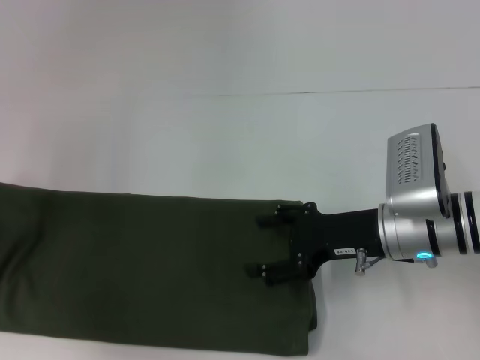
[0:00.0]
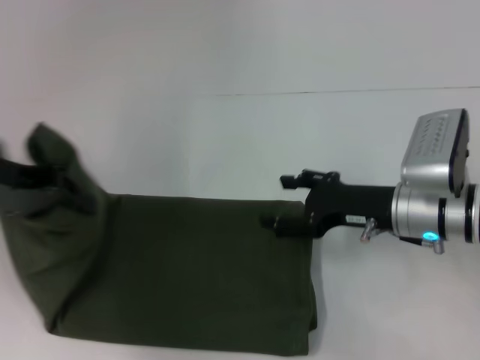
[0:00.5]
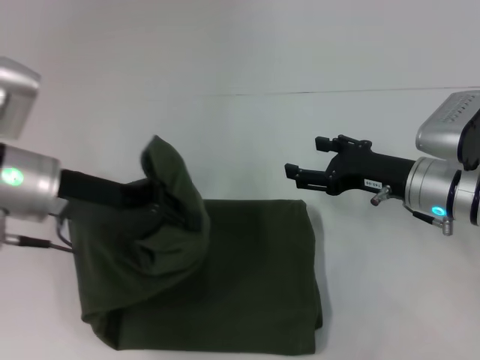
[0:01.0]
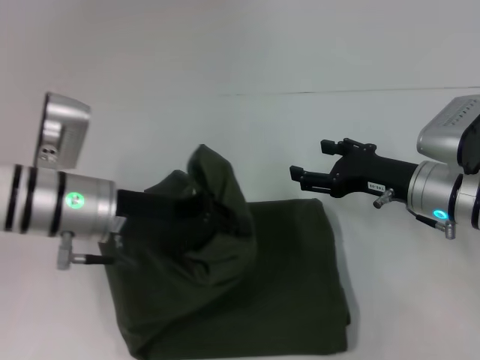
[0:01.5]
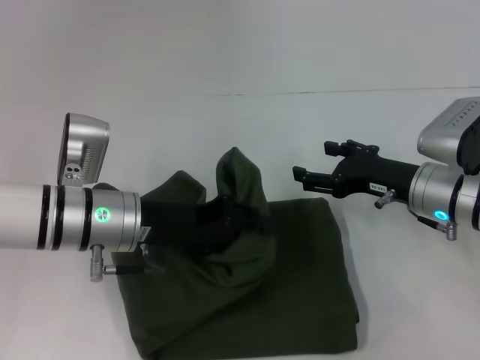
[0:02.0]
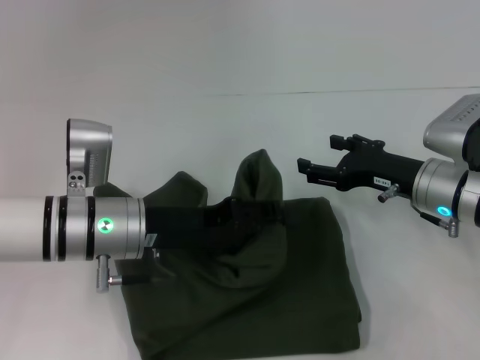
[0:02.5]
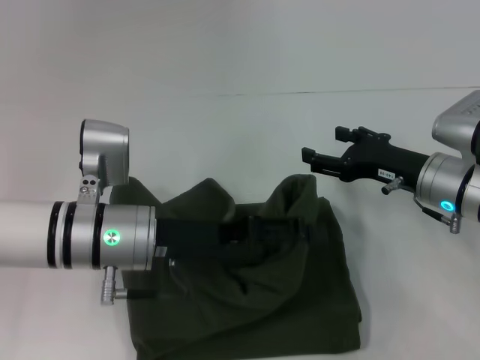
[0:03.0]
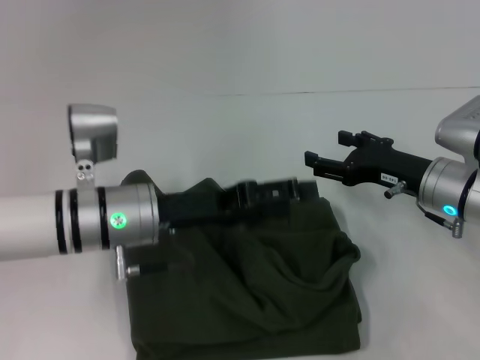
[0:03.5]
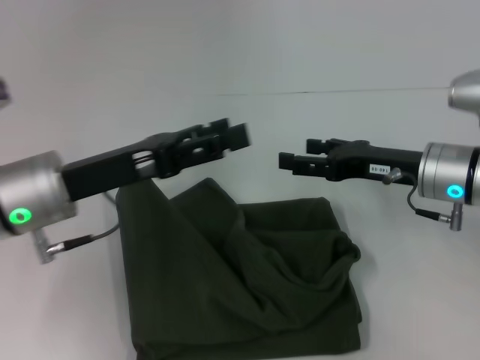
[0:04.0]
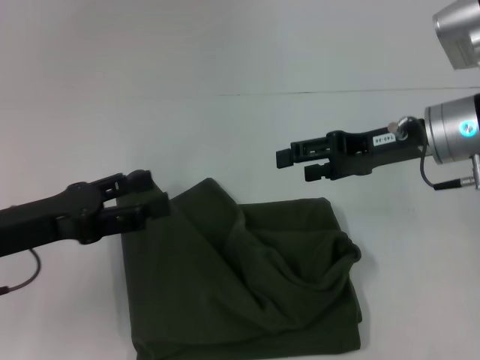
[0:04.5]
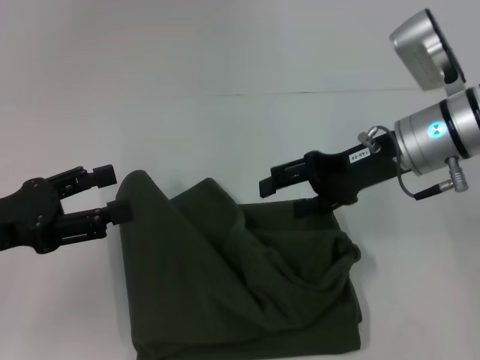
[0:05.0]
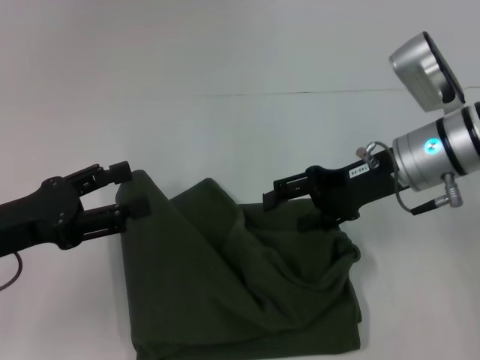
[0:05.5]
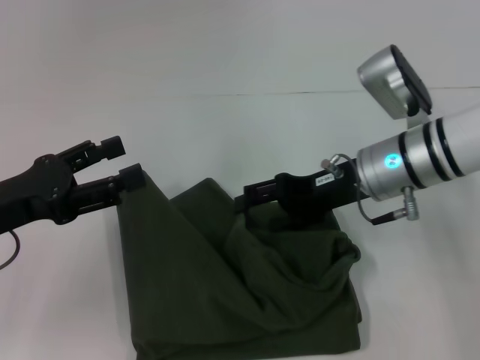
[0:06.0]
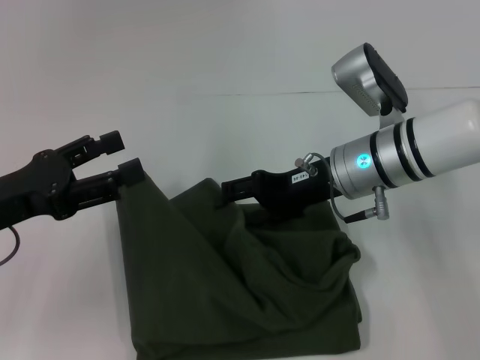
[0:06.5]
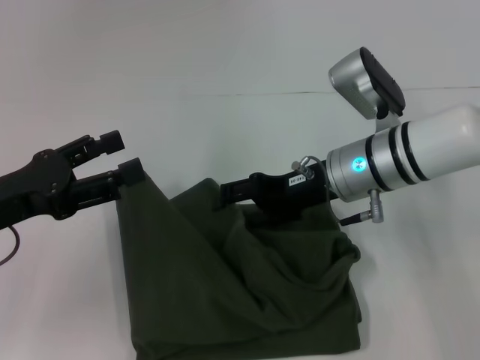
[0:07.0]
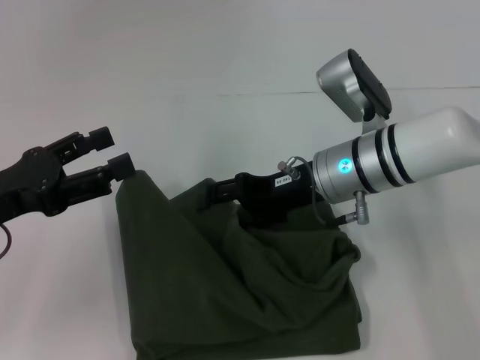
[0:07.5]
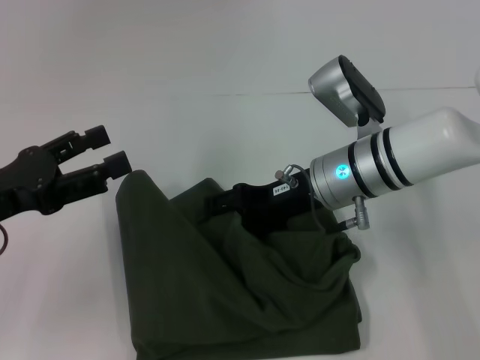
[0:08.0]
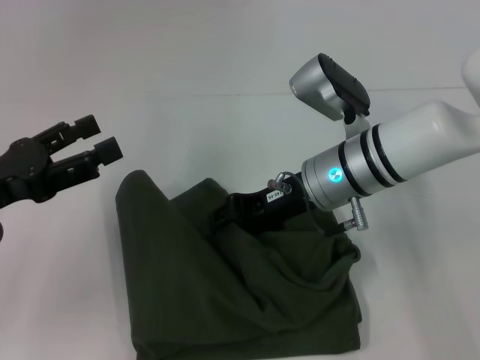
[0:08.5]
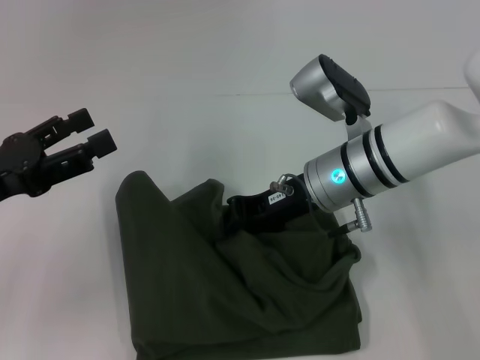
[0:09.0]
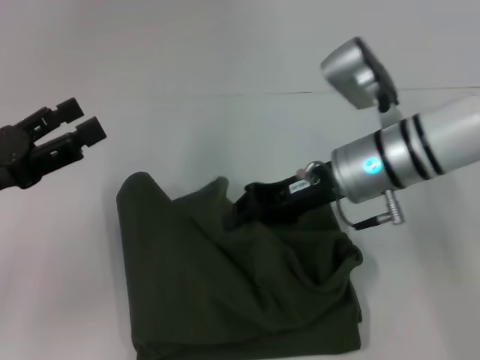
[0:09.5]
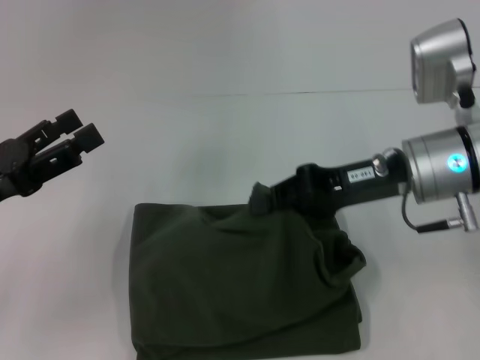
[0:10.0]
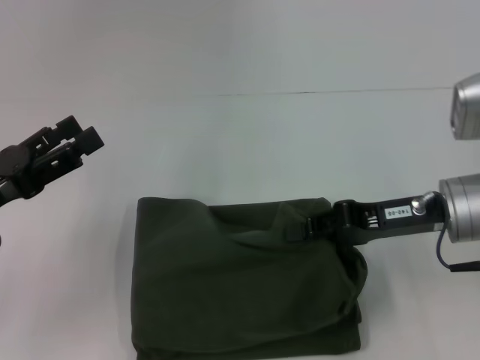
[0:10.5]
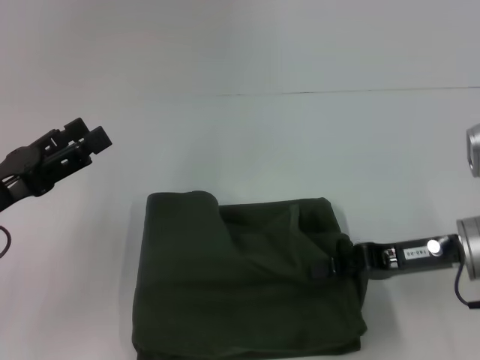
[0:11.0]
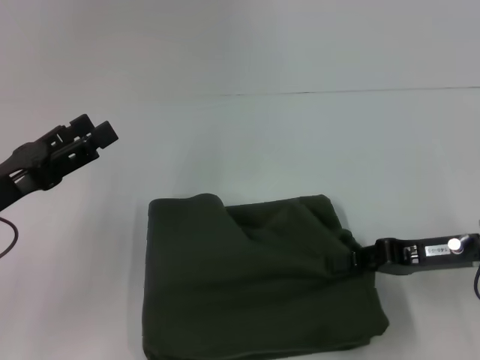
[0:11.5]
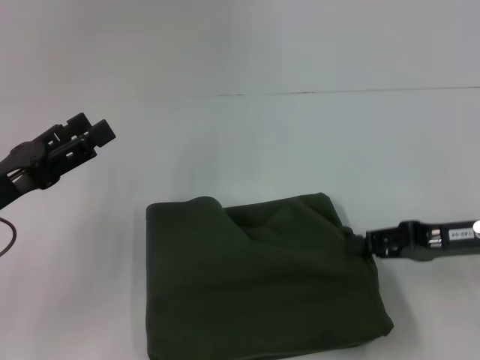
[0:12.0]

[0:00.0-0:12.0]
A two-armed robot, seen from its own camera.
Step, 0.0 to 3.0 s: Fold the clothes with your left hand.
0.0 to 2.0 s: The right gripper shifts by some 5 cm. The left gripper shifts roughly 20 cm to the right.
2.0 to 4.0 s: The left gripper changes place by approximately 5 cm, and opens its fingers.
4.0 to 6.0 s: The grippers both shift to the left by roughly 5 cm.
6.0 to 8.0 s: There are only small adjustments of the grippers.
8.0 to 10.0 s: The right gripper heads to the right, covering about 5 cm, and closes.
10.0 to 12.0 s: The right gripper is displaced to the right and downward by approximately 10 cm.

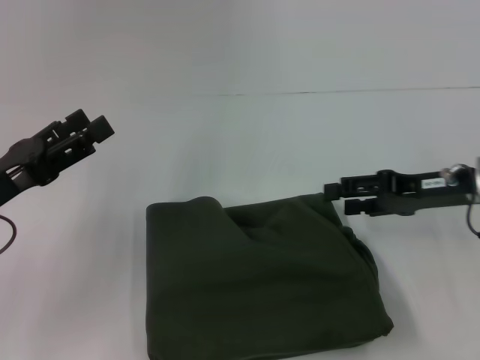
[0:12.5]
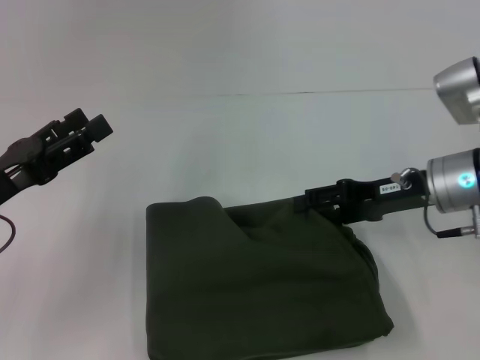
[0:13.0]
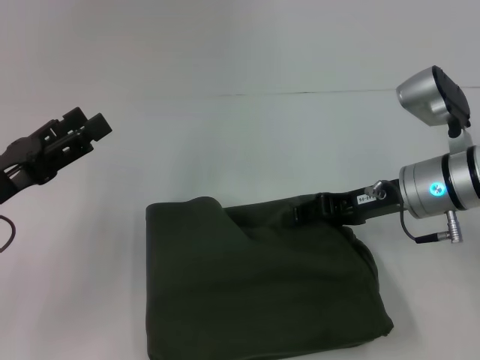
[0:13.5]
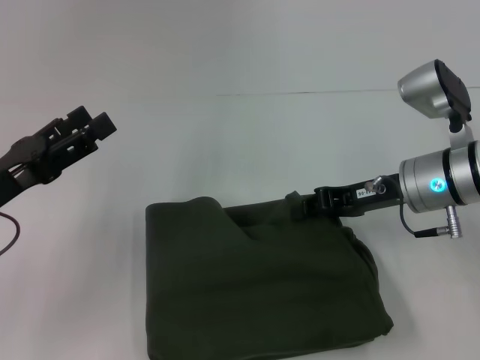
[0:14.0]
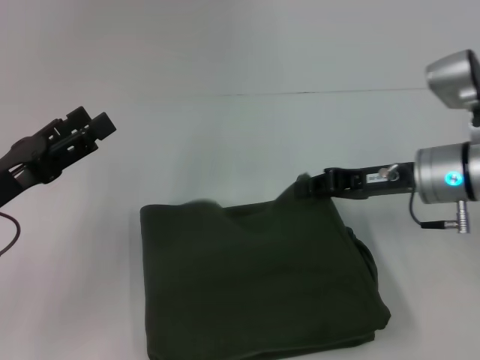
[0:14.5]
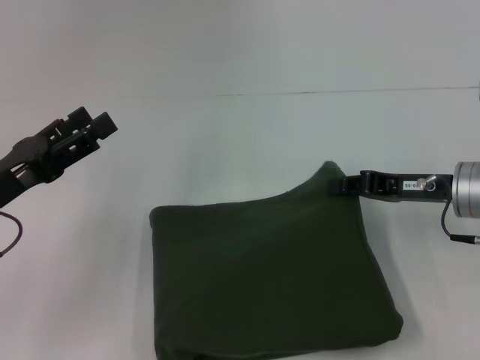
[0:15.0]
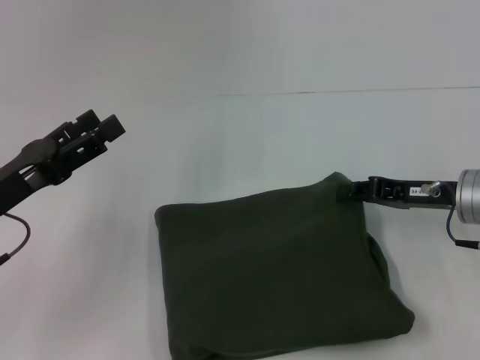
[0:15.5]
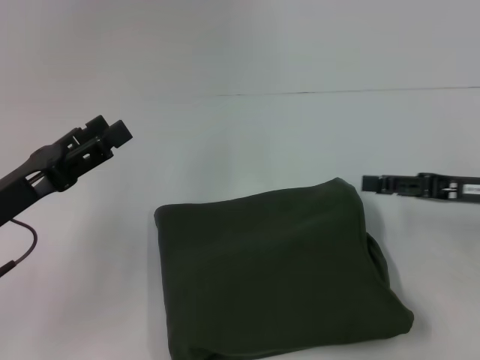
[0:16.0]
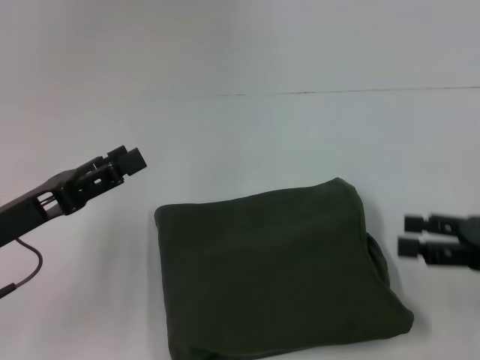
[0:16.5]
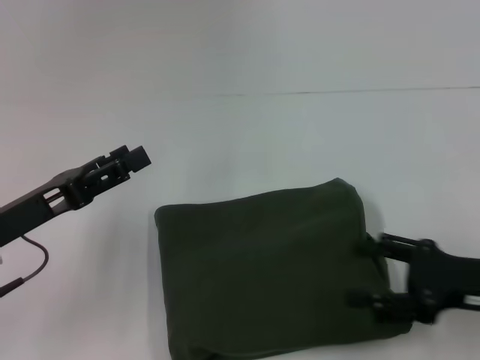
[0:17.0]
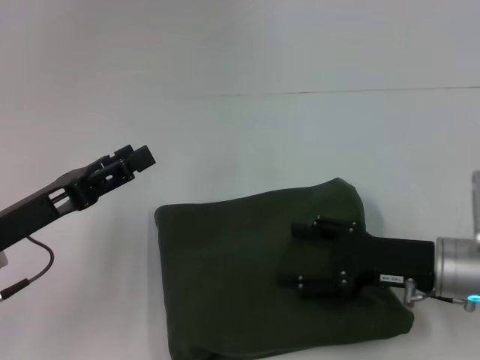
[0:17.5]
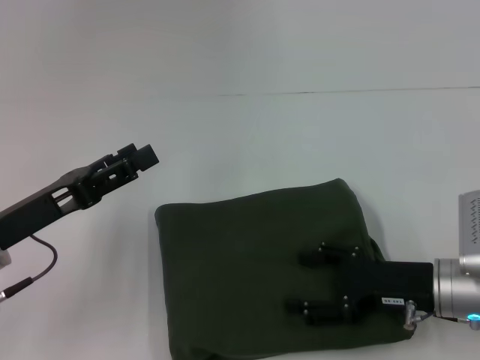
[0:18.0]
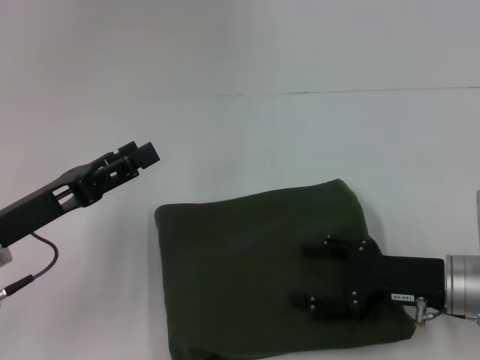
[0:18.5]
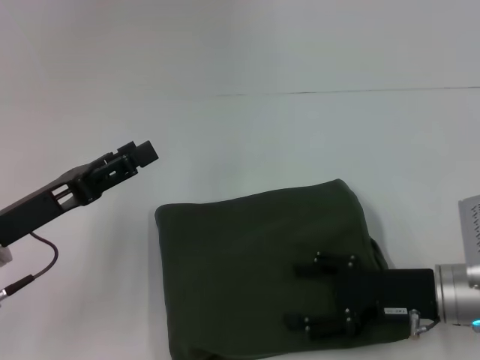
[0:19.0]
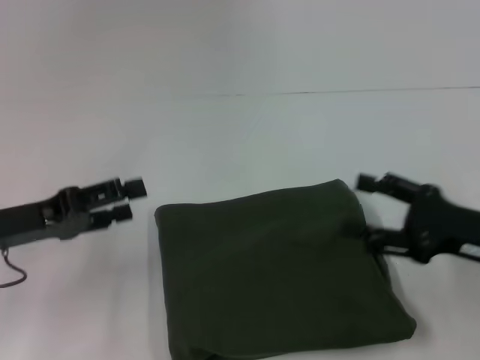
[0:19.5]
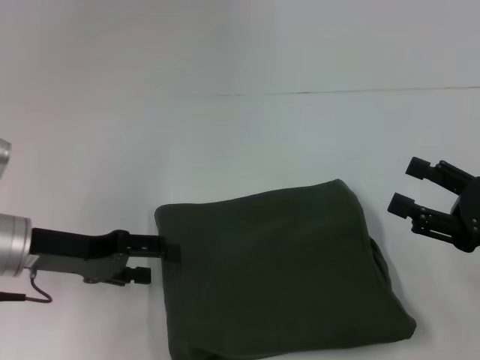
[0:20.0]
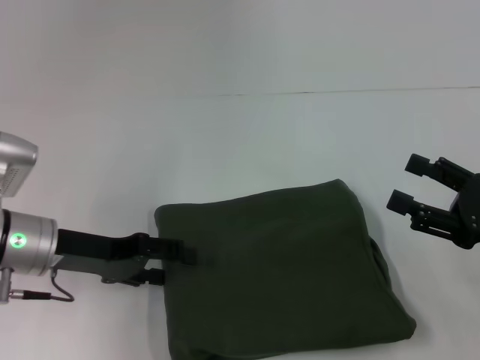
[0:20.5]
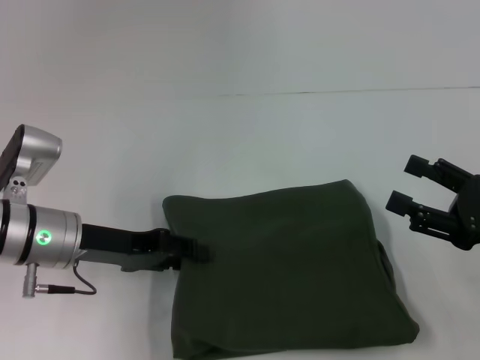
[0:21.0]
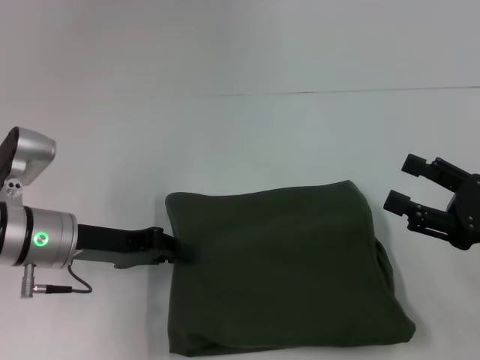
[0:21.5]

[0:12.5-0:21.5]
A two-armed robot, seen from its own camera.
12.5 to 14.5 s: The right gripper goes approximately 5 cm to the left, and closes.
14.5 to 17.0 s: The right gripper goes approximately 15 cm backward and to the right, and opens.
19.5 to 21.5 s: The left gripper travels to the right by approximately 5 cm, and closes up.

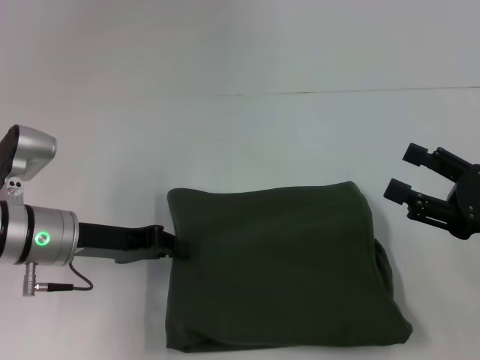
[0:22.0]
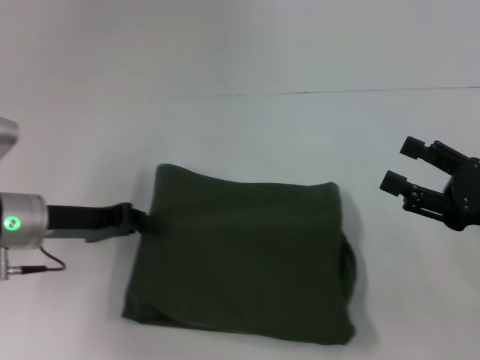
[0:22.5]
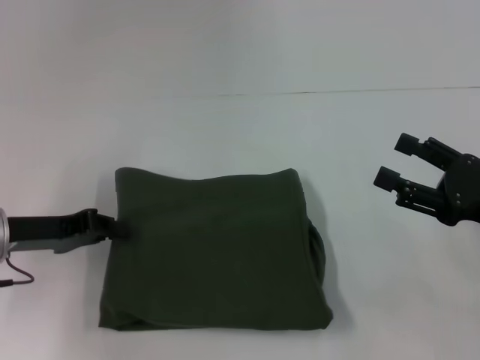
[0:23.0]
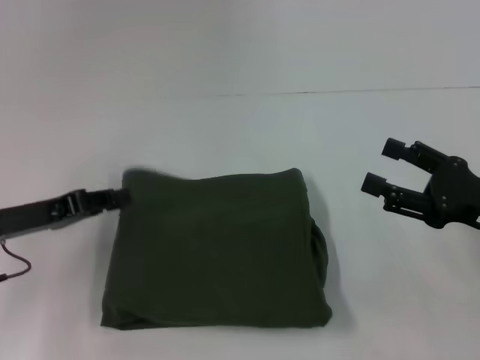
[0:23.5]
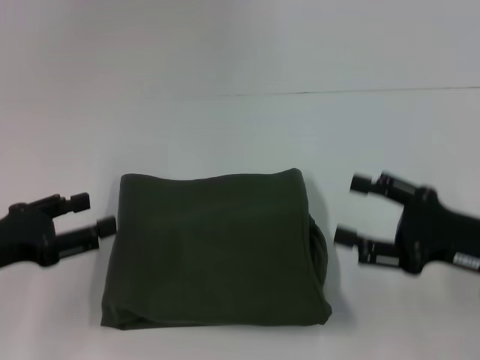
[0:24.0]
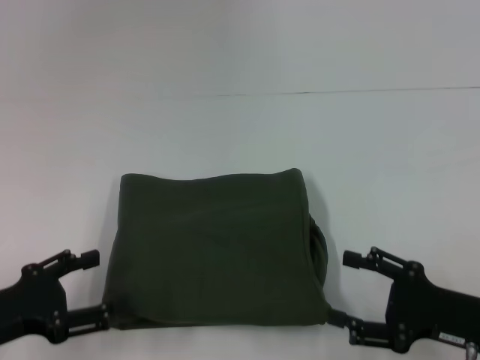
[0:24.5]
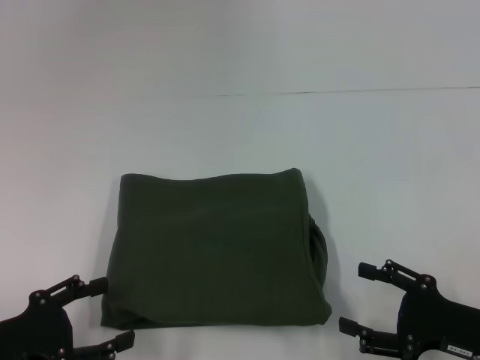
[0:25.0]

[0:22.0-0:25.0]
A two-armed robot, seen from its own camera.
22.0 to 23.5 s: The left gripper travels to the left by roughly 5 cm.
23.5 to 25.0 s: The right gripper heads backward and downward, covering roughly 10 cm. The left gripper heads backward, covering roughly 10 cm, and opens.

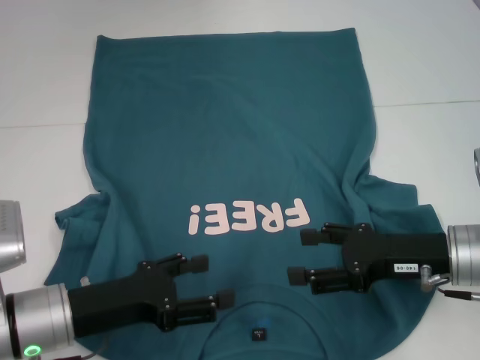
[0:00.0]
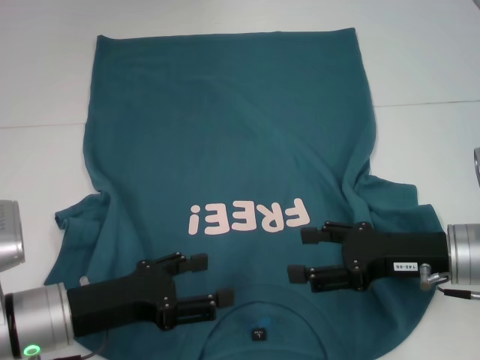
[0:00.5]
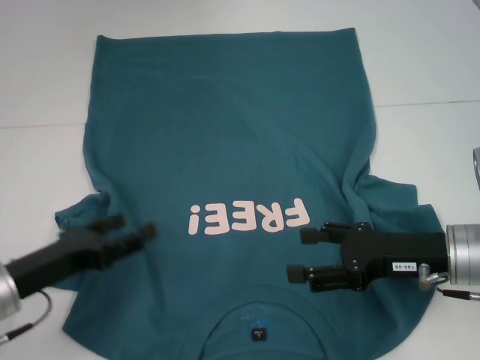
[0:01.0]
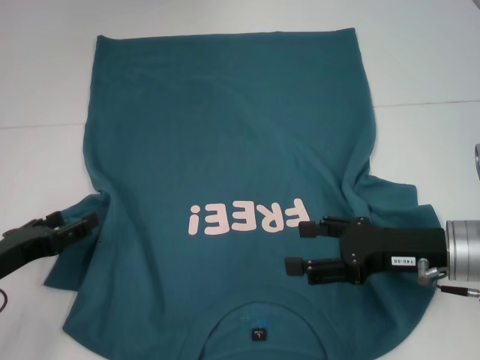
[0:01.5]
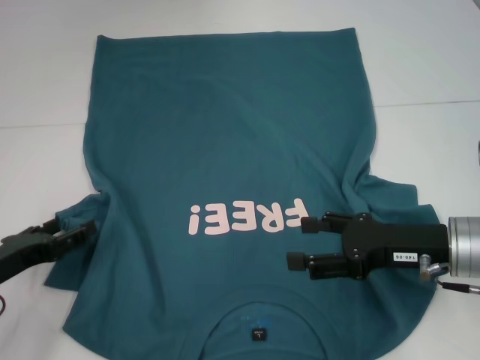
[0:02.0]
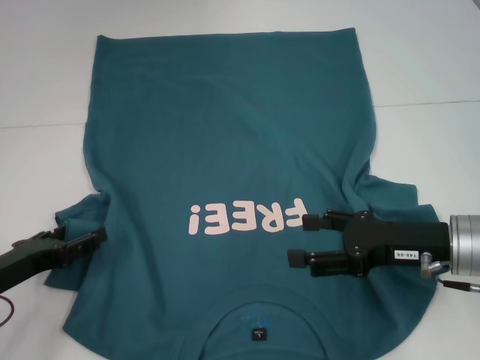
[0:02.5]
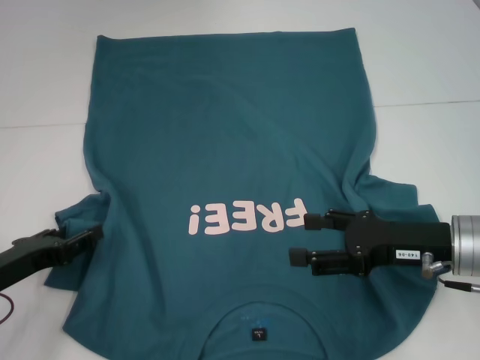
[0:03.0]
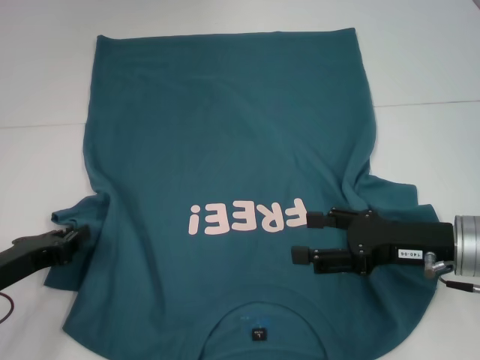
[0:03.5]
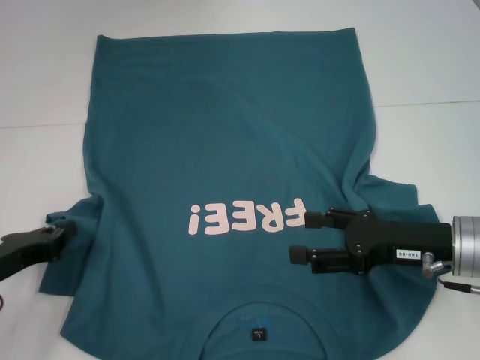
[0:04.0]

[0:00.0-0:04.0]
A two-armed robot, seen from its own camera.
0.0 to 2.0 s: The left gripper heads to the left, covering approximately 10 cm.
2.0 to 4.0 s: The left gripper closes.
